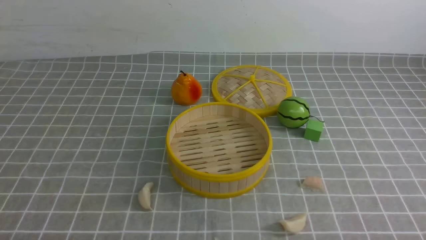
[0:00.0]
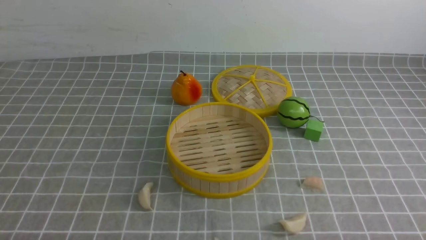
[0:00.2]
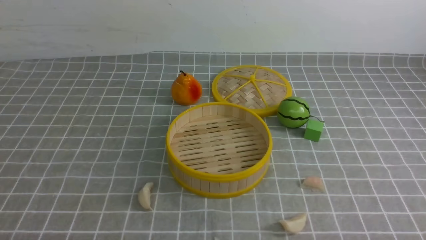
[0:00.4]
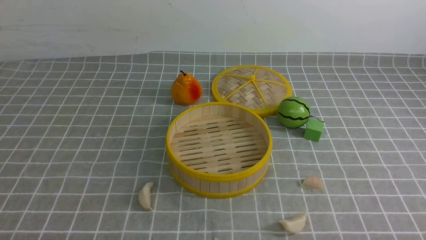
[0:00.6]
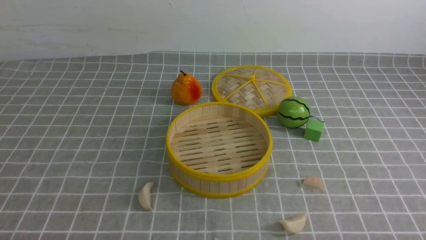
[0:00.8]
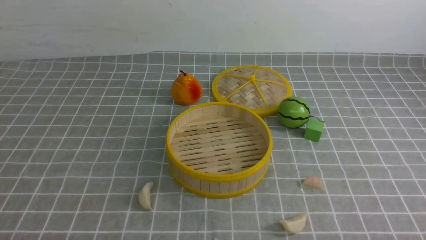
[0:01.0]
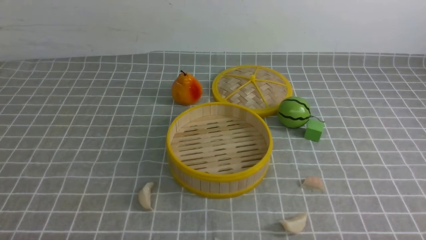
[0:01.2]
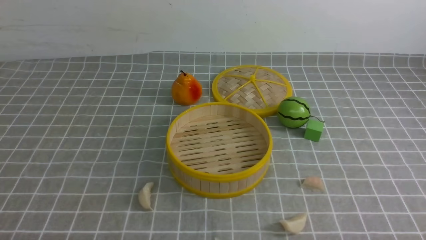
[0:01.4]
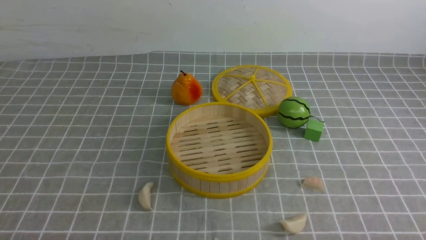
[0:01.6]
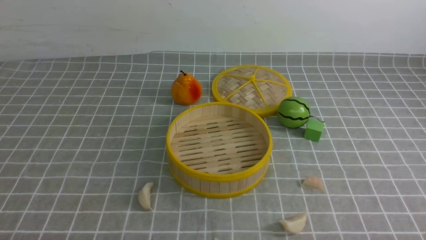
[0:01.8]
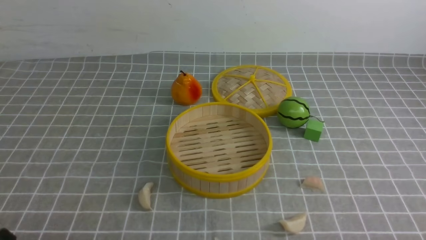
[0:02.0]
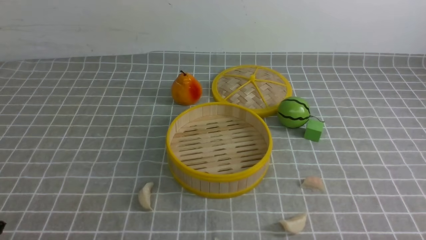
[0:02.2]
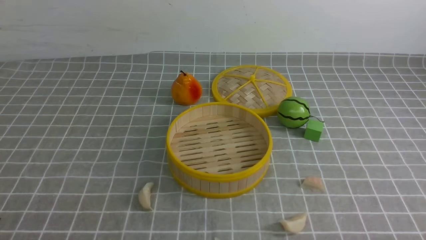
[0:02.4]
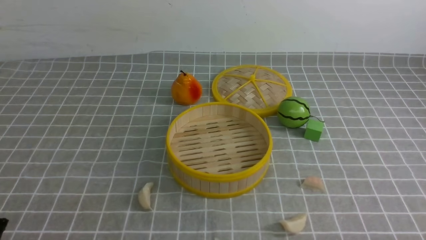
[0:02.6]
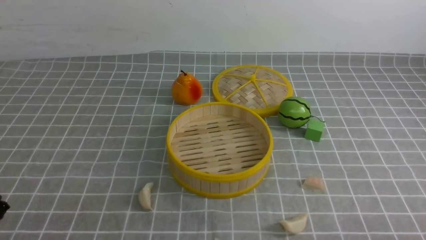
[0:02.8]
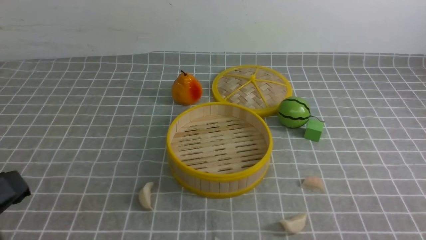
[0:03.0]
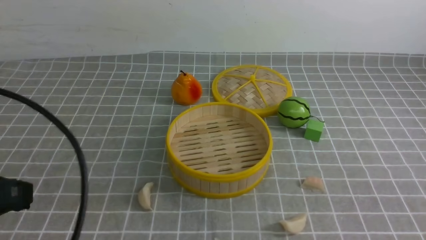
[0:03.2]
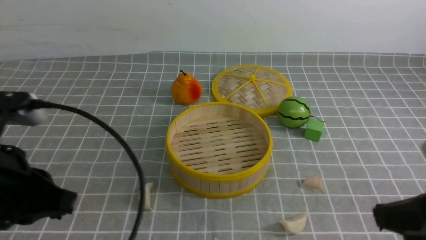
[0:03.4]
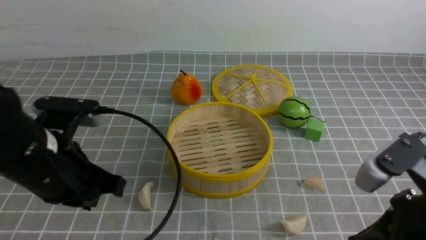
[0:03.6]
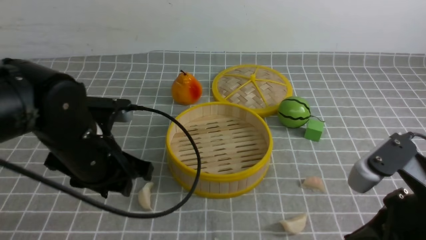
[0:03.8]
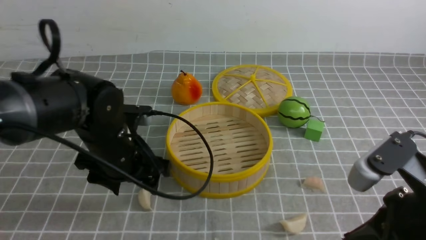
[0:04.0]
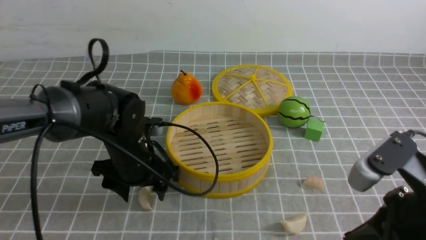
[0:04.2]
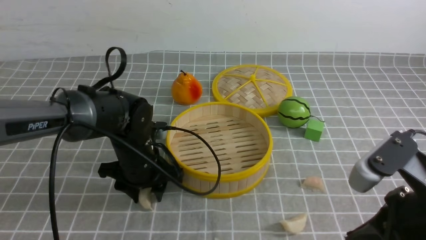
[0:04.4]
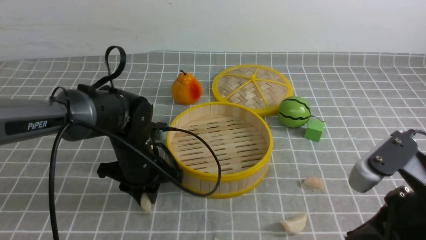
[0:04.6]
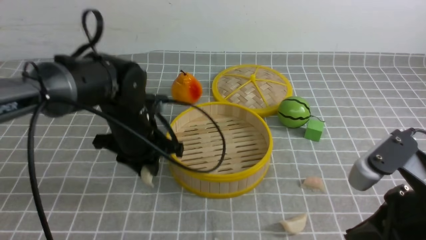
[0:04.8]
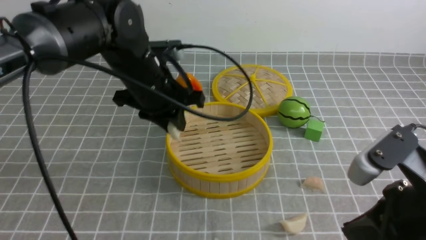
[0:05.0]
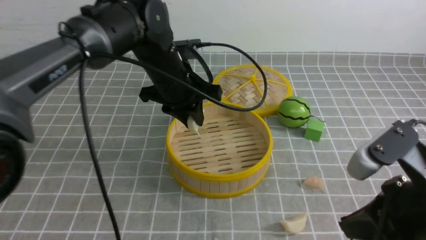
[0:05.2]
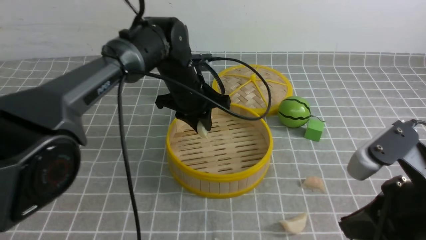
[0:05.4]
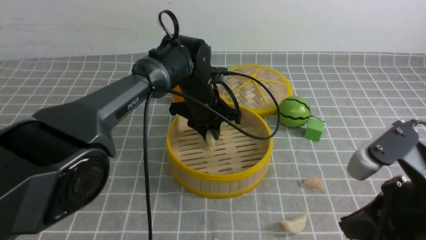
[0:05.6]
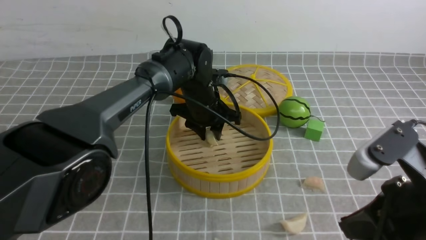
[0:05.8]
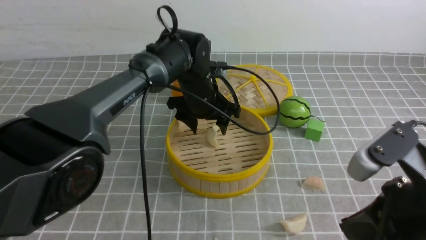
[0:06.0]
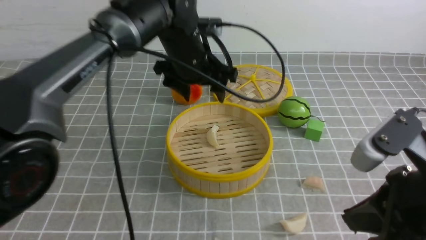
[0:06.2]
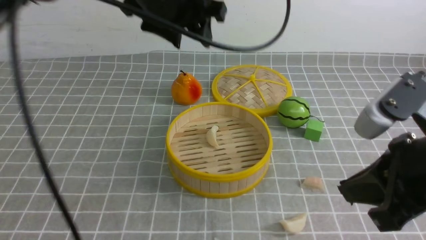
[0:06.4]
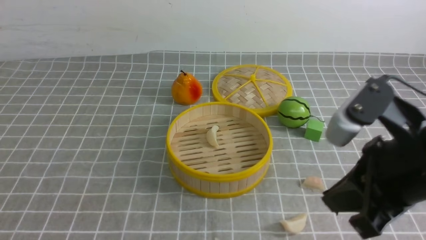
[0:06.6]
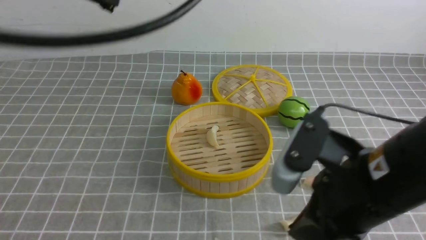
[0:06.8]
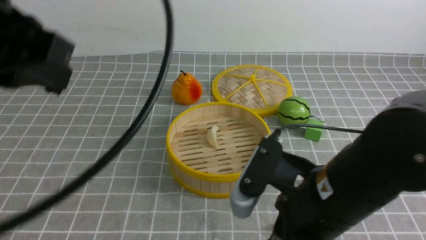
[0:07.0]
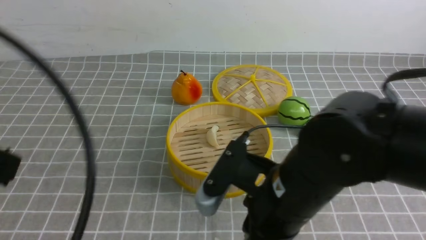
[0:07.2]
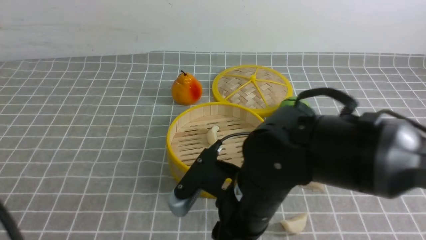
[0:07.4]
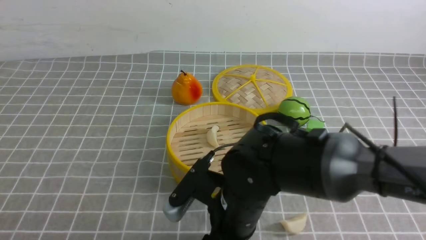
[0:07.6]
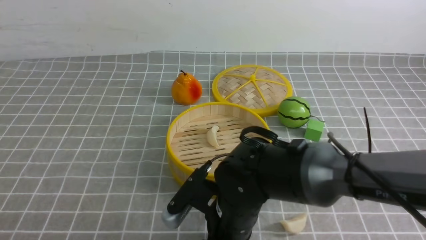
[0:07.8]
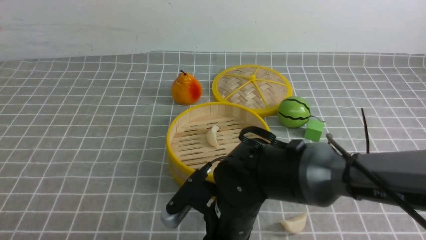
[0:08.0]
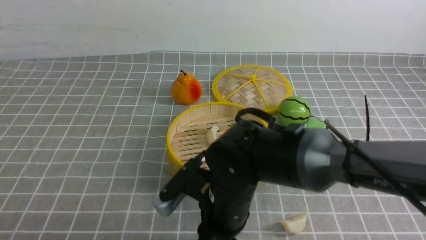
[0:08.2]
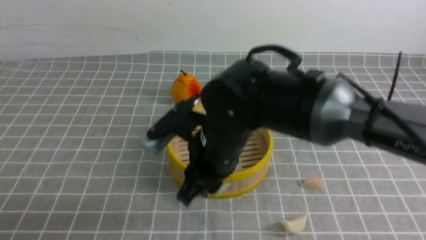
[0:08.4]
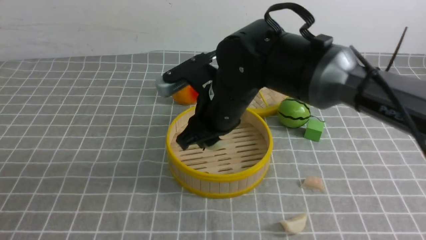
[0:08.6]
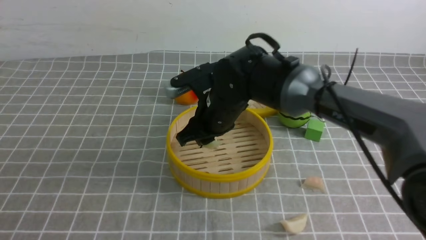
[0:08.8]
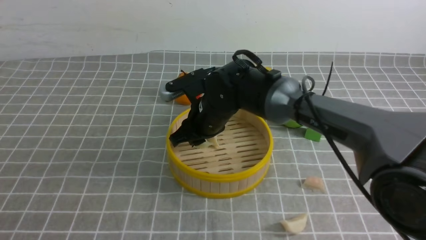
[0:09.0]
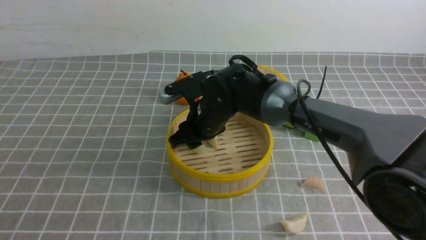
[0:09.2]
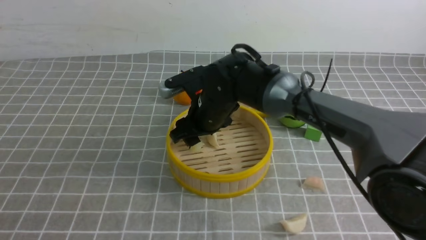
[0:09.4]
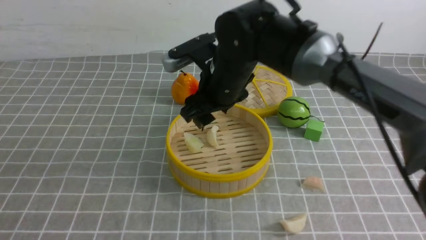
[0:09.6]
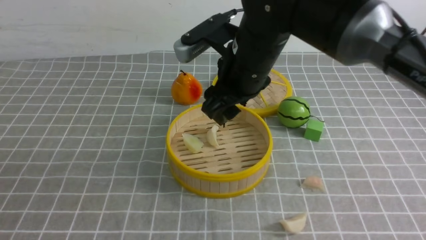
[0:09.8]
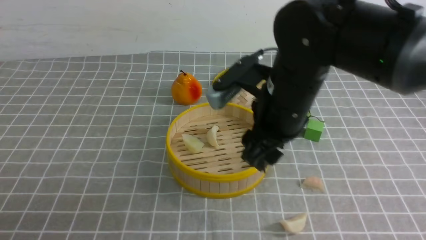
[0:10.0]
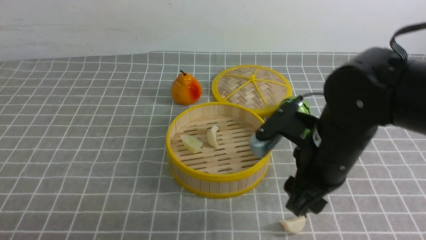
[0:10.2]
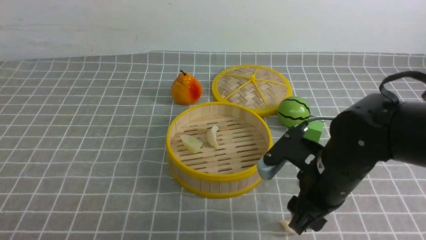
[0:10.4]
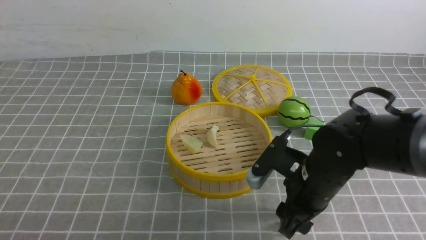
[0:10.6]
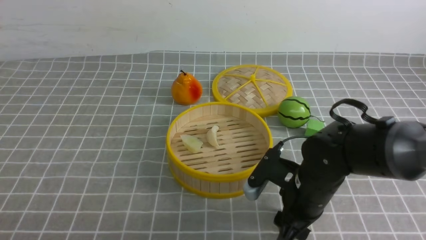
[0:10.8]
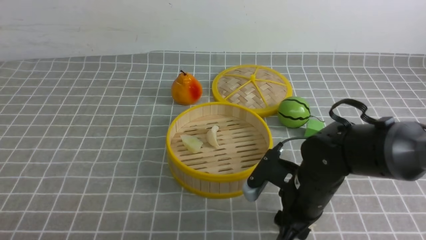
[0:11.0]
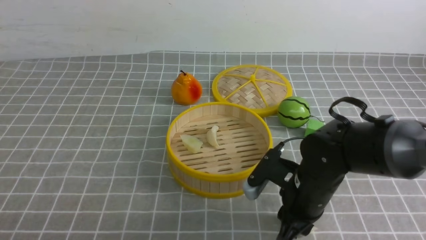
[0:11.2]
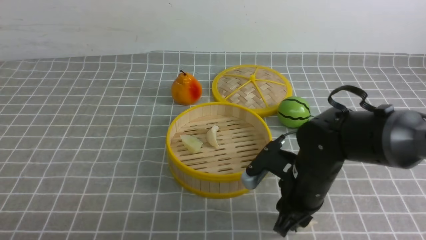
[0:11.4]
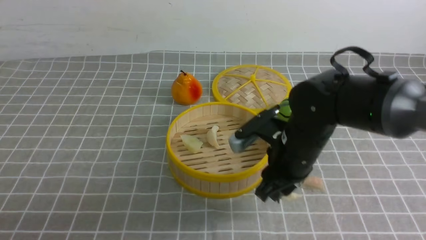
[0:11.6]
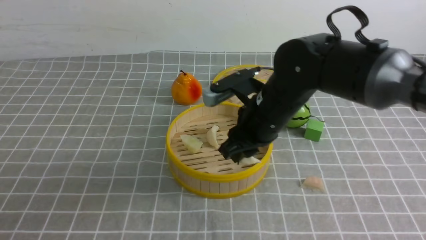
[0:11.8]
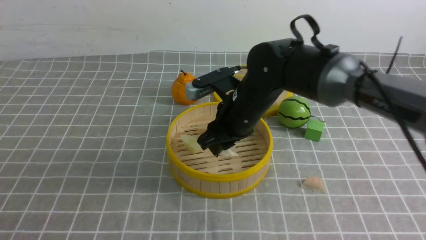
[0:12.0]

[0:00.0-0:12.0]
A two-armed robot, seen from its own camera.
Task of the whole recording: put the dumplings into the steamer on the table with the grey tablecloth.
Step, 0:00.0 to 0:04.6: use the left arm to grab a dumpling.
Step, 0:04.8 to 0:06.0: use the left arm to put the dumpling into the steamer.
Step, 0:06.2 to 0:08.0: use the right arm to grab a dumpling.
Step, 0:08.2 to 0:09.4: use the right arm to put the dumpling into the steamer.
Step, 0:09.6 to 0:11.2: use the right arm to grab a dumpling.
0:00.0 to 0:01.6: Both grippers stay put.
0:01.6 to 0:03.0: The left gripper is displaced upward by approximately 15 cm.
0:03.0 to 0:04.4: The right gripper moves forward and to the left, about 10 cm, while the left gripper is displaced forward, downward and to the right by approximately 35 cm, and opens up.
0:04.4 to 0:06.0: The left gripper moves forward, to the right and upward, about 15 cm.
0:06.0 to 0:07.6: The left gripper is displaced backward and to the left by roughly 40 cm, and closes. The right gripper heads to the left and downward, covering approximately 20 cm, and opens its fingers.
0:07.6 to 0:09.0: The right gripper goes roughly 15 cm forward, and closes up.
0:09.0 to 0:10.4: The right gripper heads to the right and backward, covering some 20 cm, and opens its fingers.
0:10.4 to 0:12.0: The right gripper moves forward and to the left, some 15 cm, and closes up.

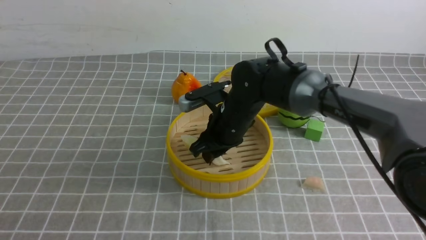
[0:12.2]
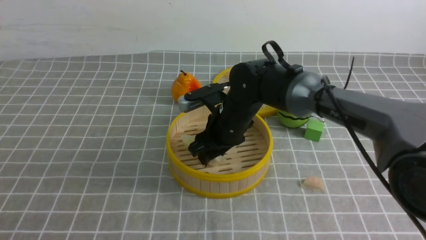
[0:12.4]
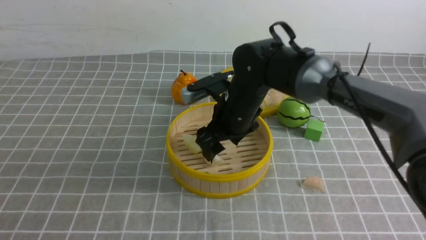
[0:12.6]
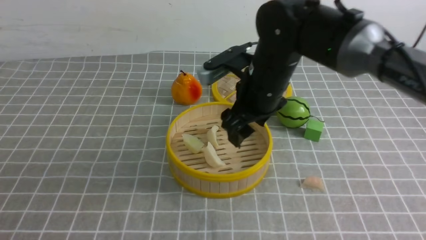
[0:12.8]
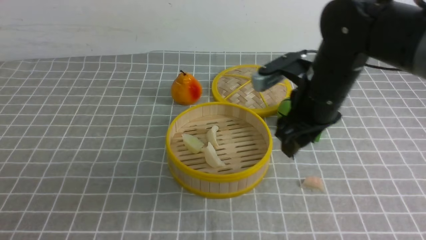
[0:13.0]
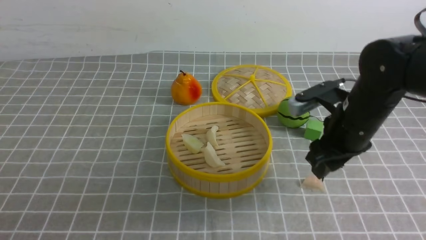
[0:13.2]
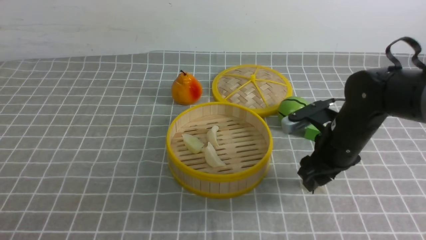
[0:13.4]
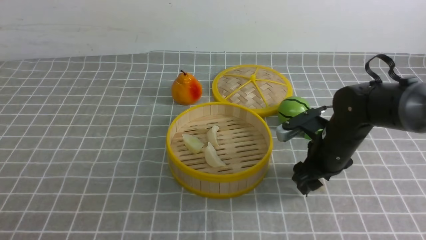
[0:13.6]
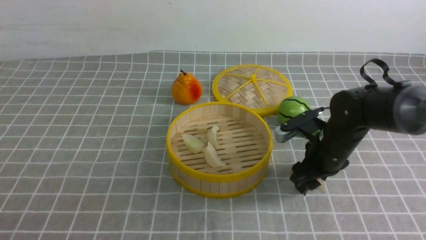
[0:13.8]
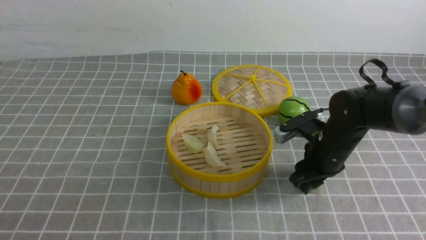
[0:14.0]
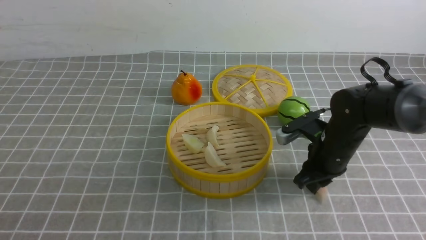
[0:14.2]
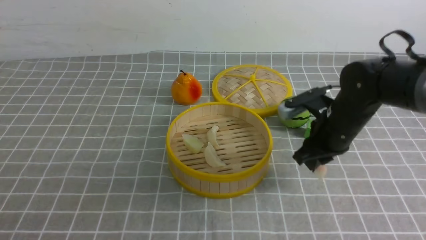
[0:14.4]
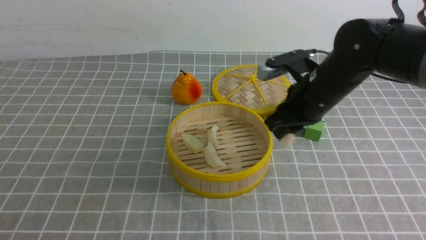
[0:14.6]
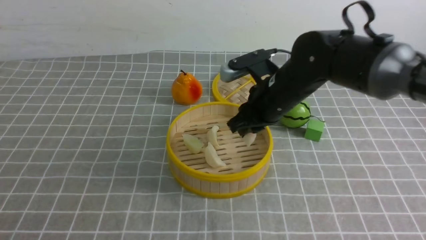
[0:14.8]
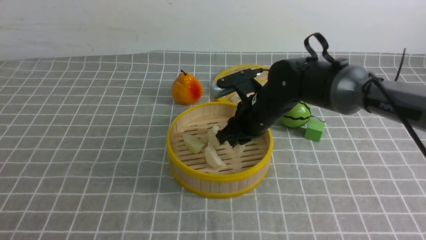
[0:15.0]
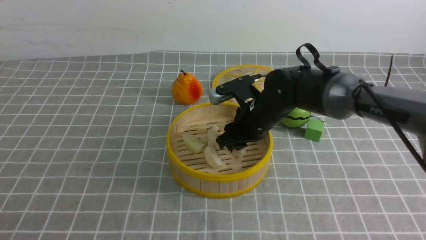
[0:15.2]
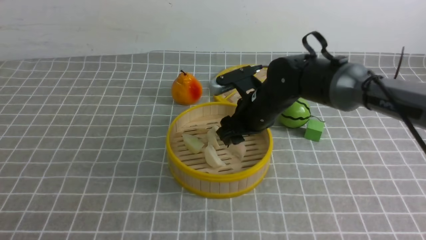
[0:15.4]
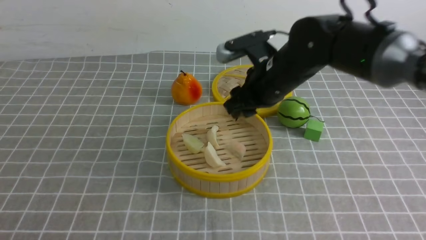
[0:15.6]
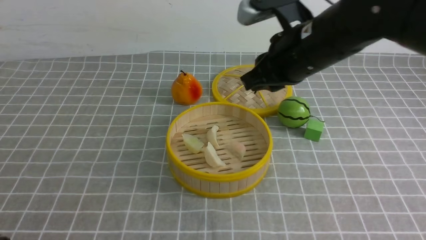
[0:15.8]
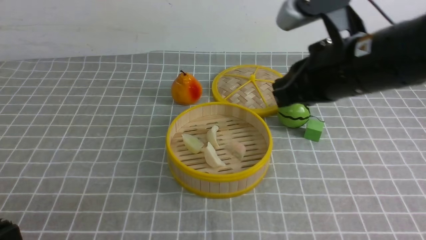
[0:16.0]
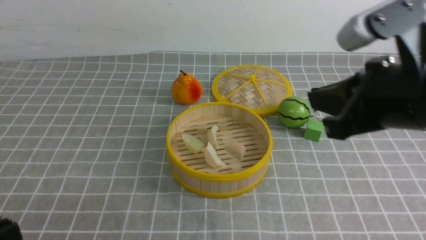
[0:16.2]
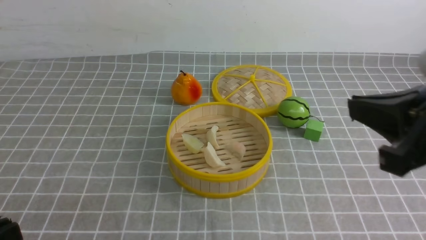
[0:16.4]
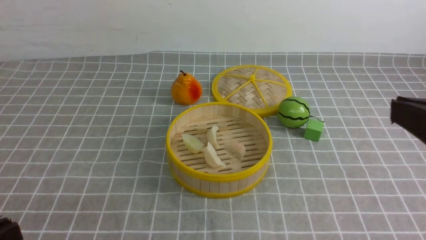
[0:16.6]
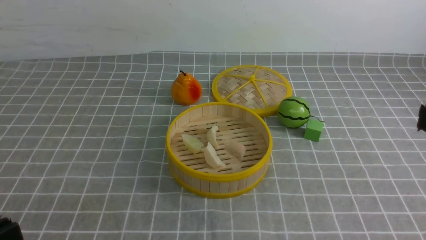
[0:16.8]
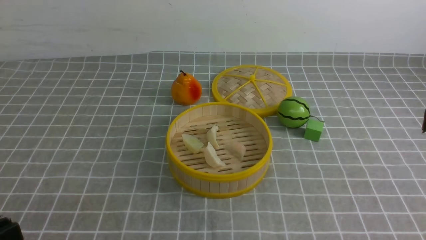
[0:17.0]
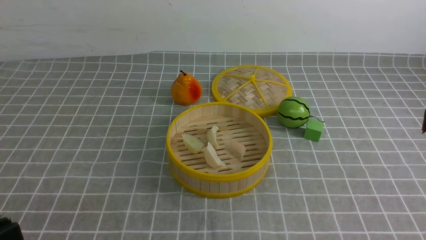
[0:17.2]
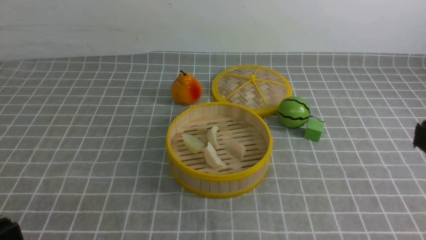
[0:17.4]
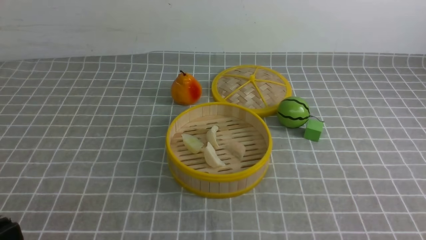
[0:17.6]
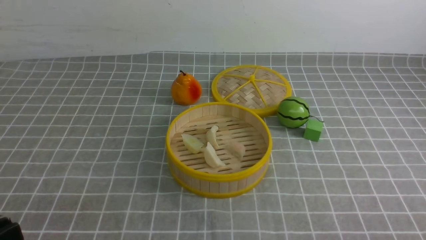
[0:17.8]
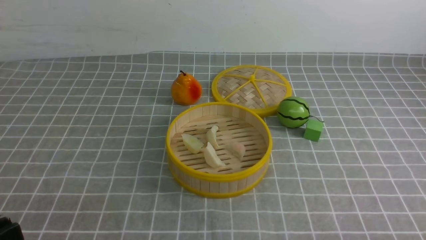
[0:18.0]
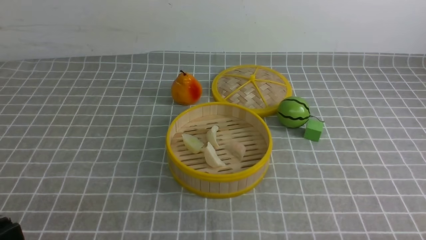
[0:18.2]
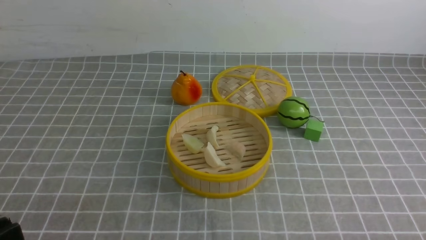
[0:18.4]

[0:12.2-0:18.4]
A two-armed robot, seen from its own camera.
Task of the whole recording: put the dumplings into the steamer on the table with the grey tablecloth.
Step, 0:12.8 to 0:14.2: use the right arm to grab a dumpling.
Step, 0:14.4 to 0:15.2: use the right arm to put the dumpling into the steamer.
0:12.2 to 0:13.8: The right gripper shifts roughly 15 cm to the right.
0:13.8 to 0:15.4: The right gripper shifts approximately 15 cm to the left and upward, and closes, then reopens.
0:15.4 to 0:16.8: The right gripper goes roughly 35 cm backward, to the right and upward, and closes.
